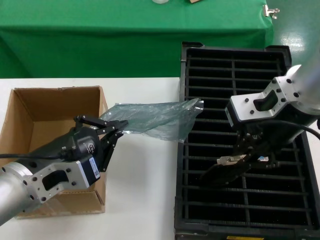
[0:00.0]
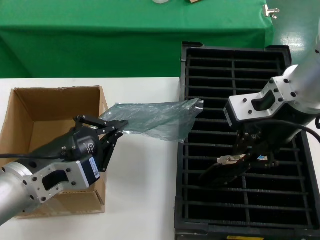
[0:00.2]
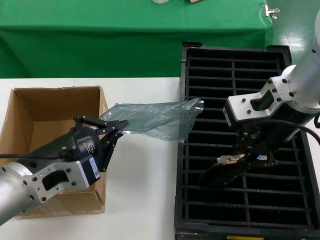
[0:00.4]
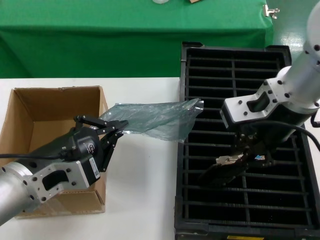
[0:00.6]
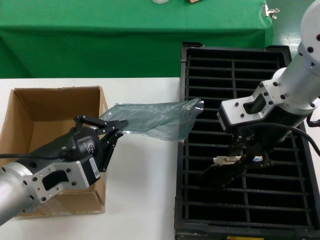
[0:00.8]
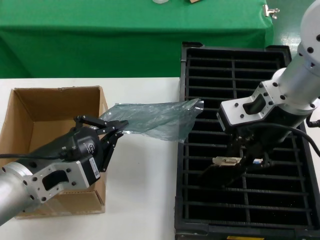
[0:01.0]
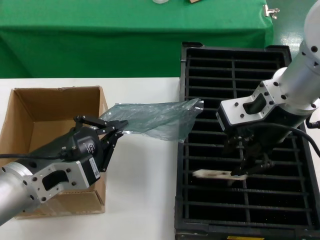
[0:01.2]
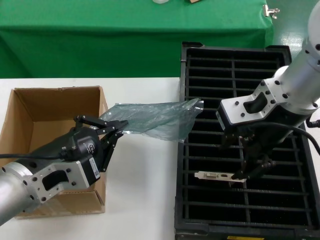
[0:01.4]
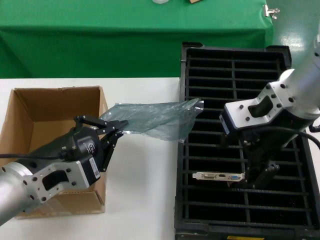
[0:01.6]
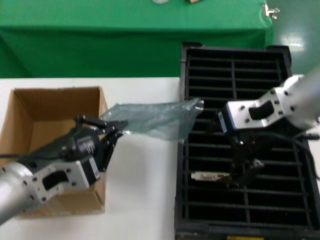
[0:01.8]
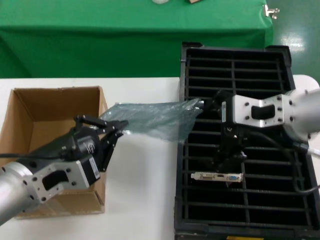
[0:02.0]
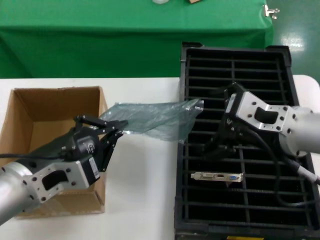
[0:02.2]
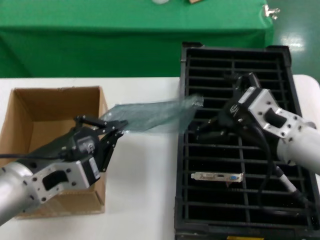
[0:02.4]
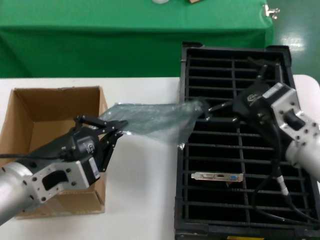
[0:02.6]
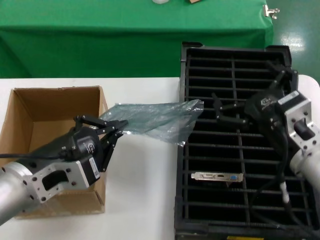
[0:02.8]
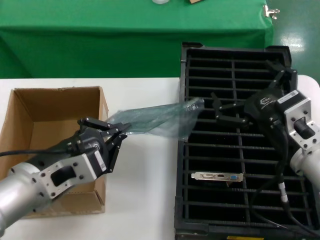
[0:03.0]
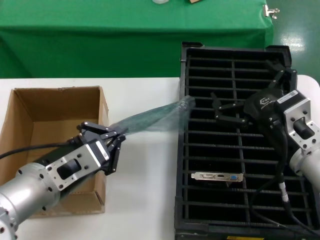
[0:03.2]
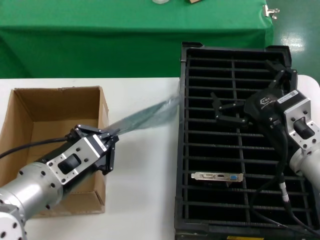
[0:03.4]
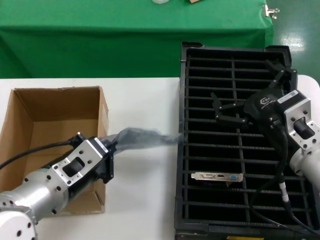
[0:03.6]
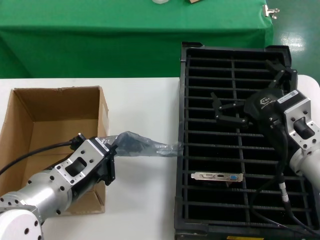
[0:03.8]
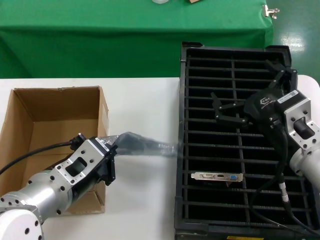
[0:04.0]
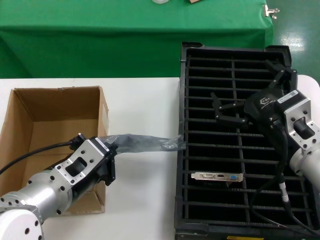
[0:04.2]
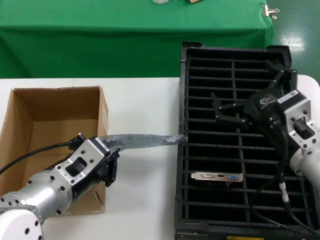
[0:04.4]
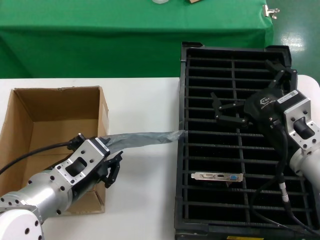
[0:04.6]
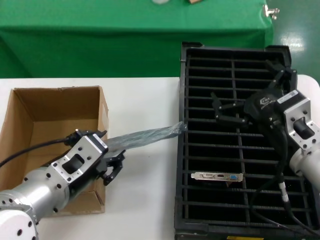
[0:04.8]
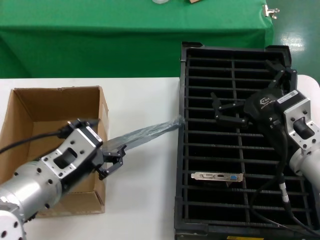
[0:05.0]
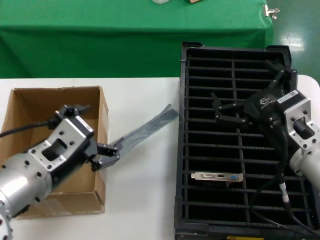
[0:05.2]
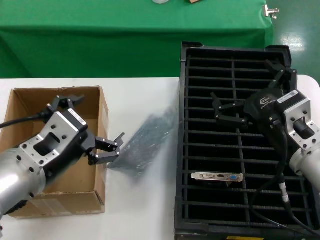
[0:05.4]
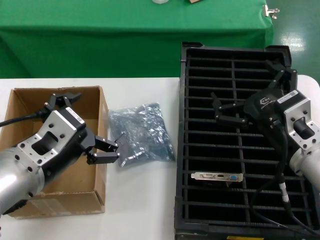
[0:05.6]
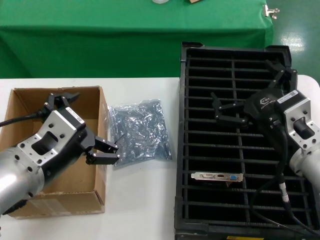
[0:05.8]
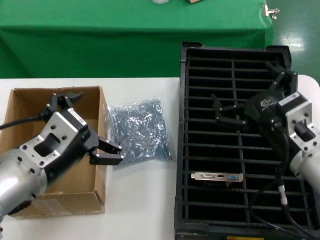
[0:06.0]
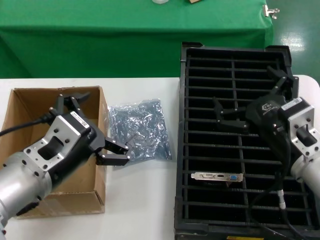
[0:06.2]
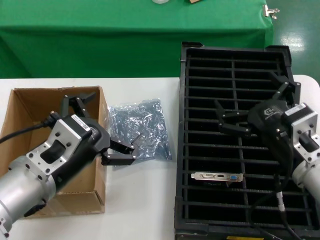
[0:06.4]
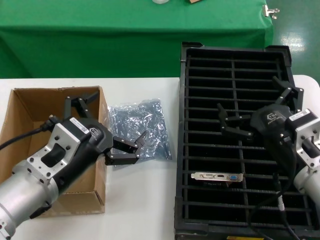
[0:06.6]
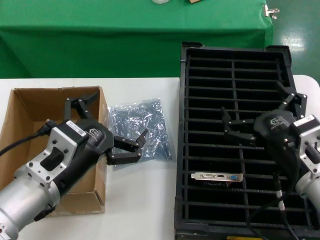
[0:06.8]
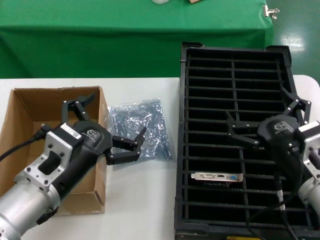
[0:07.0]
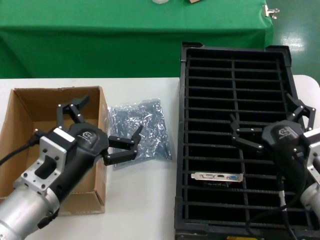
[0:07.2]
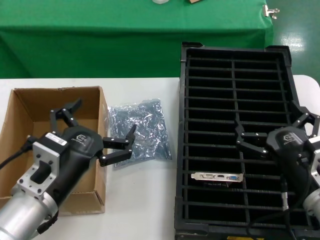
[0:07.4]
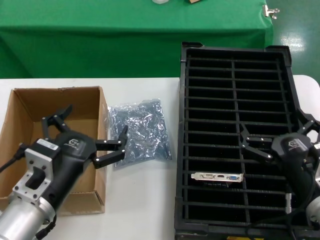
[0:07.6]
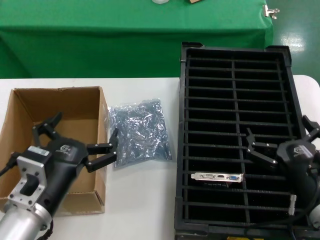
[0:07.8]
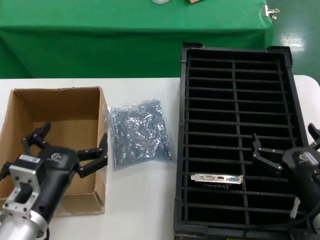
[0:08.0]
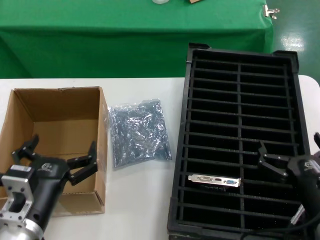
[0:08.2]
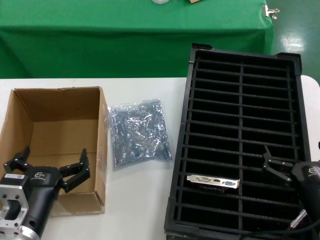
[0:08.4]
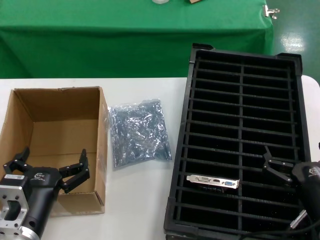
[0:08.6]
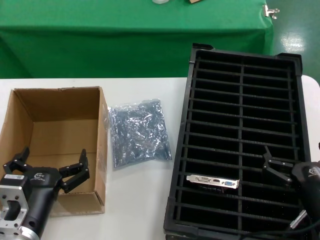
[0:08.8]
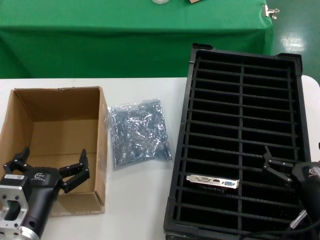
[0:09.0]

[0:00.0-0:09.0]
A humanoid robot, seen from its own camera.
Task of the whole recording: take out graphics card from box remove packaging put into black container.
Step, 0:01.8 to 0:05.2: Place the down the bag.
0:00.0 to 0:01.6: There are only small adjustments of the hands.
0:01.6 to 0:03.0: The right hand travels downward by roughly 20 cm.
0:04.4 to 0:06.0: The left hand shifts roughly 5 cm upward.
0:06.0 to 0:07.6: The two hands go roughly 10 cm downward.
0:07.6 to 0:09.0: The right hand changes place by approximately 5 cm. The left hand travels downward by about 5 cm.
